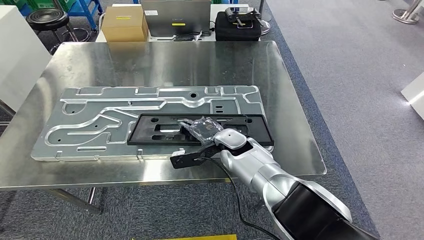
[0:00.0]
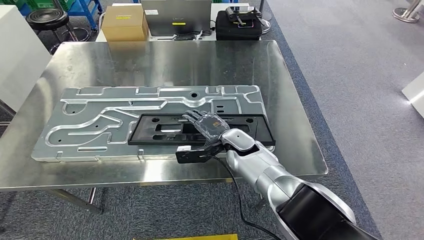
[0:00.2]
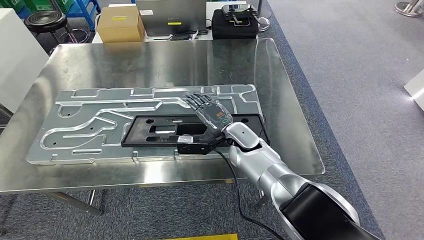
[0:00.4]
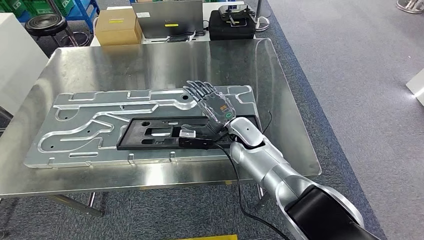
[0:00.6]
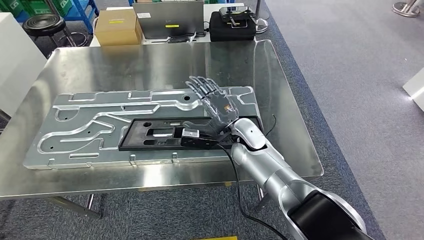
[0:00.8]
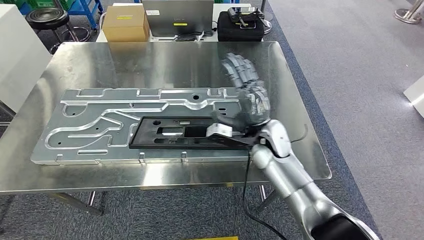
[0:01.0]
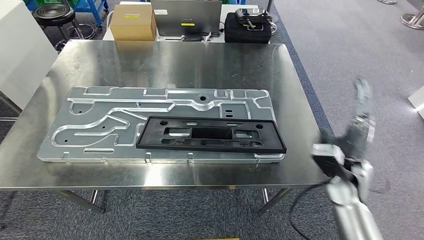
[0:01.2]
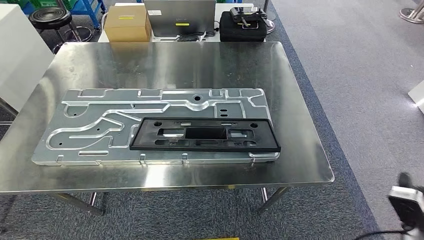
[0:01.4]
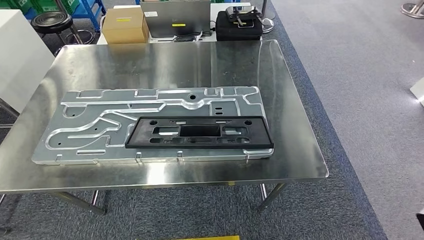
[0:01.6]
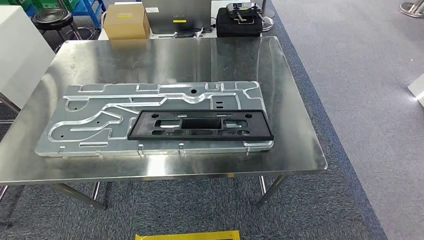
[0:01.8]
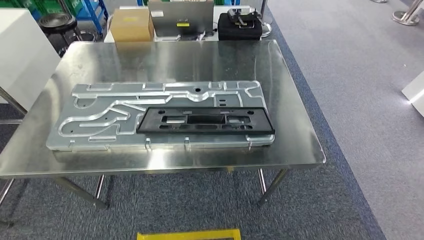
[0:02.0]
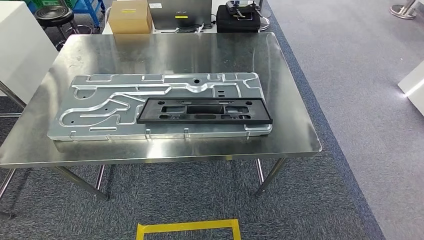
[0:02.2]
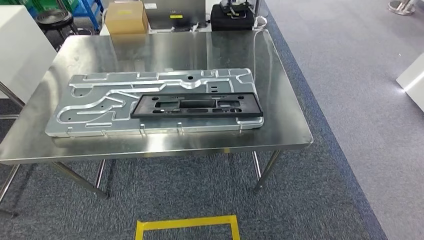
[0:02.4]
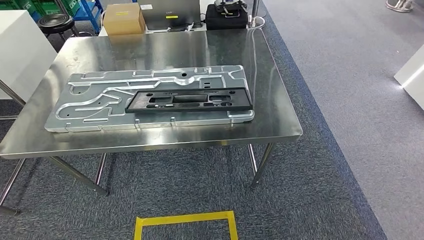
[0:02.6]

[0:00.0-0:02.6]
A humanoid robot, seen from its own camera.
Step, 0:00.0 to 0:02.6: Move to the initial position of the shelf.

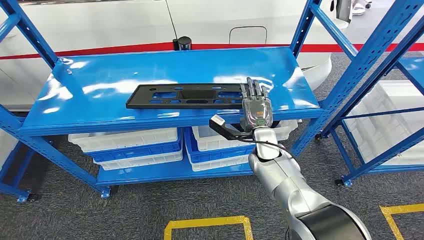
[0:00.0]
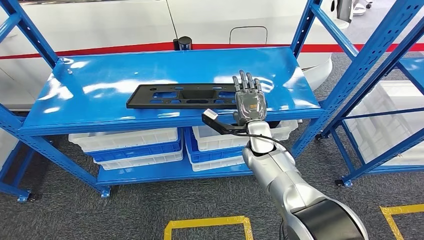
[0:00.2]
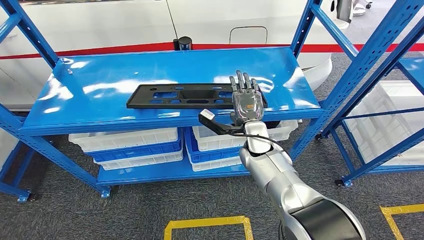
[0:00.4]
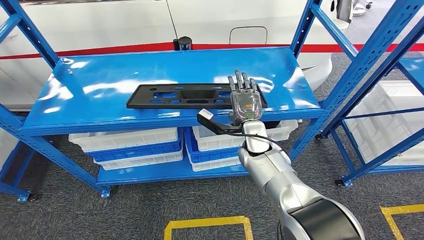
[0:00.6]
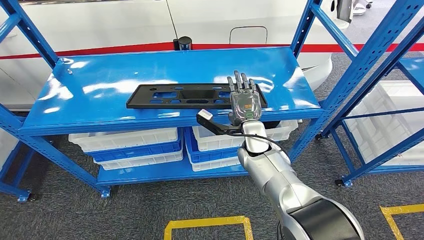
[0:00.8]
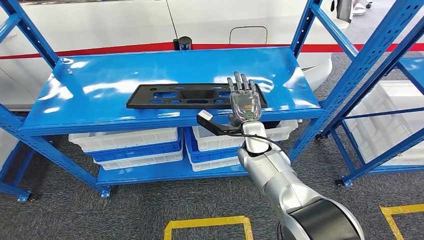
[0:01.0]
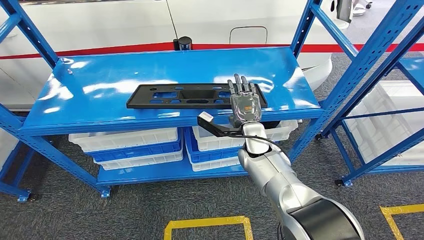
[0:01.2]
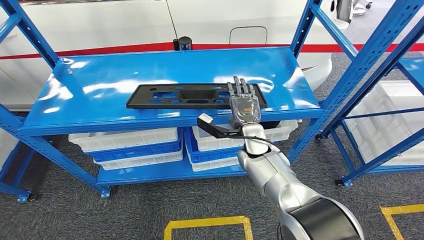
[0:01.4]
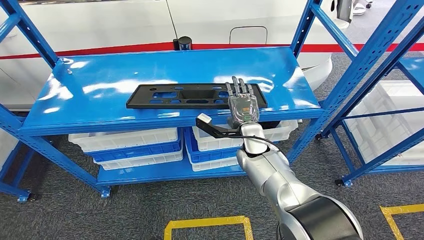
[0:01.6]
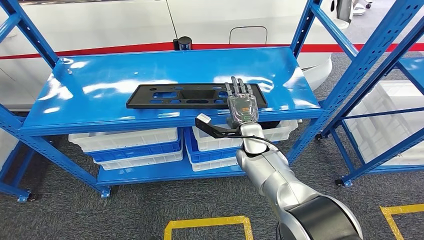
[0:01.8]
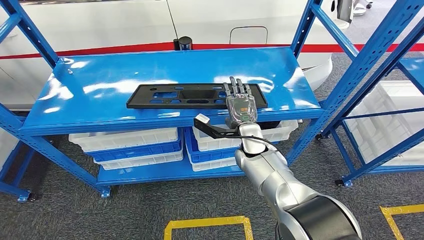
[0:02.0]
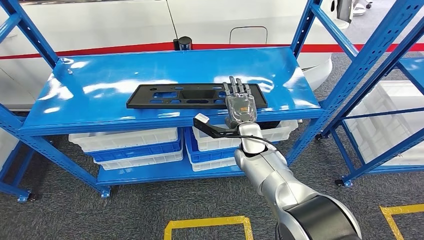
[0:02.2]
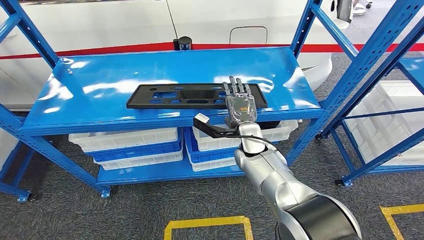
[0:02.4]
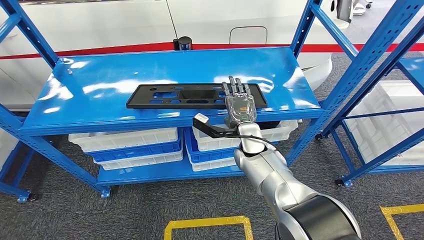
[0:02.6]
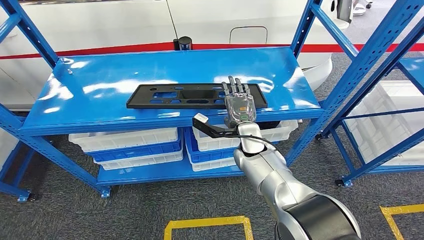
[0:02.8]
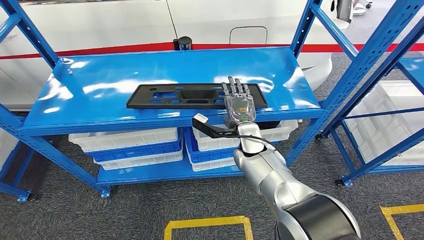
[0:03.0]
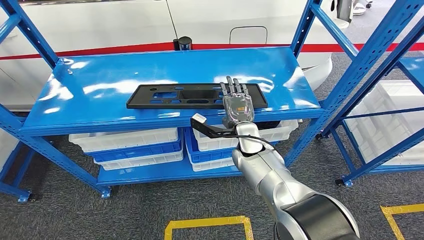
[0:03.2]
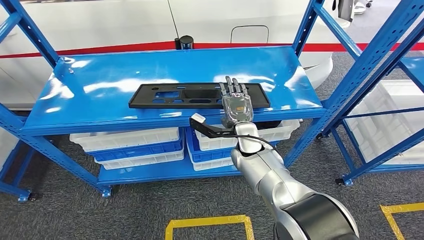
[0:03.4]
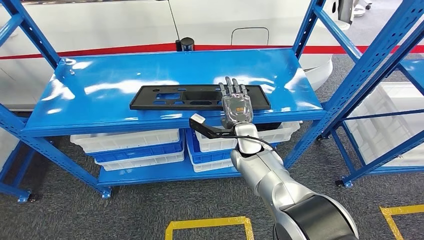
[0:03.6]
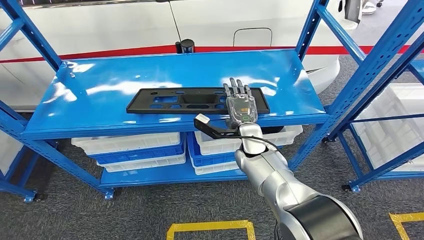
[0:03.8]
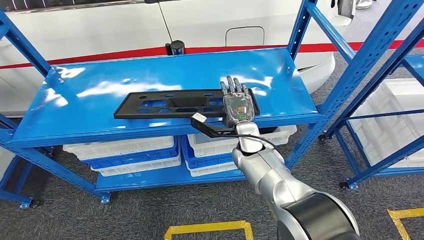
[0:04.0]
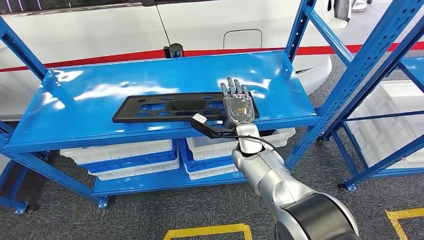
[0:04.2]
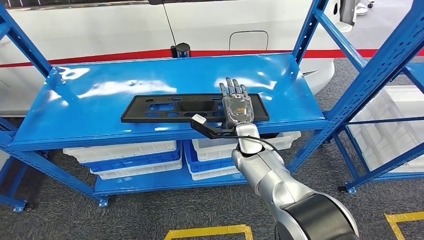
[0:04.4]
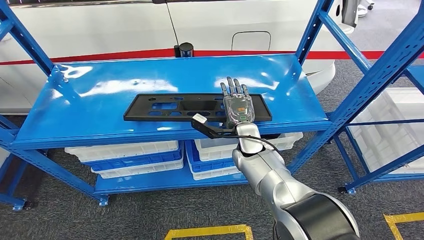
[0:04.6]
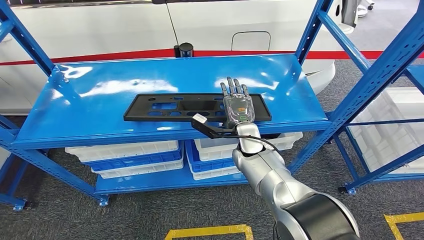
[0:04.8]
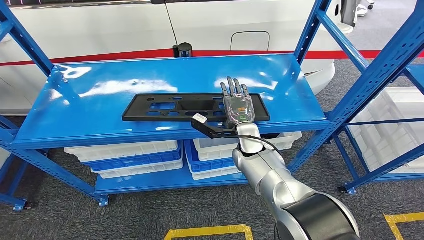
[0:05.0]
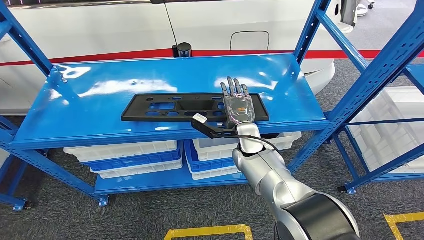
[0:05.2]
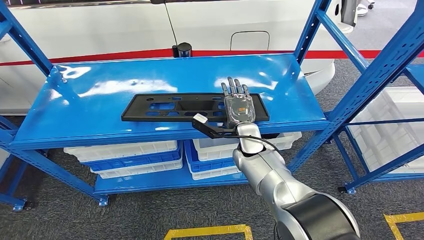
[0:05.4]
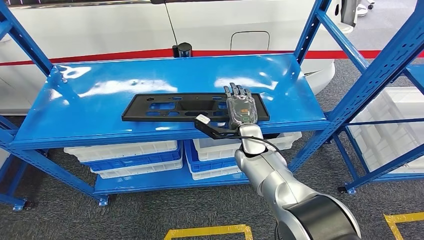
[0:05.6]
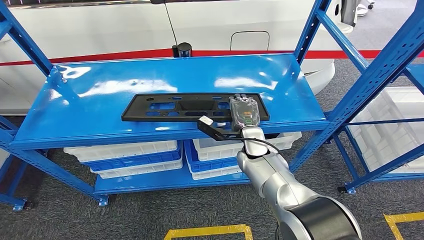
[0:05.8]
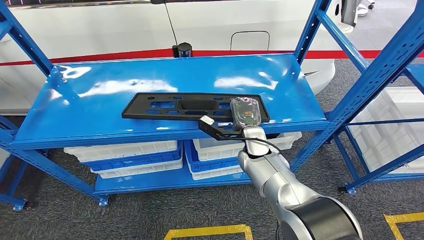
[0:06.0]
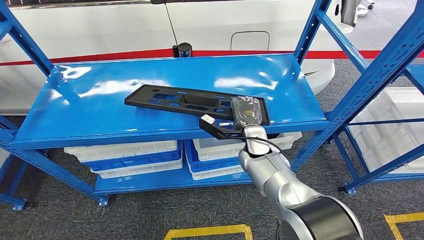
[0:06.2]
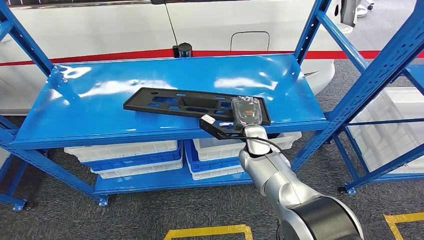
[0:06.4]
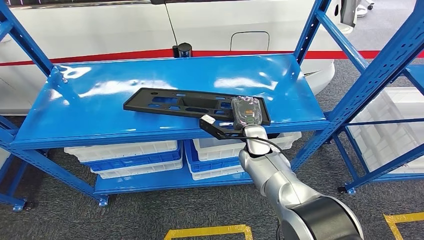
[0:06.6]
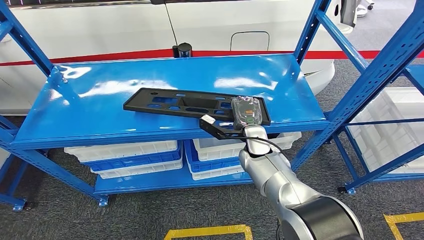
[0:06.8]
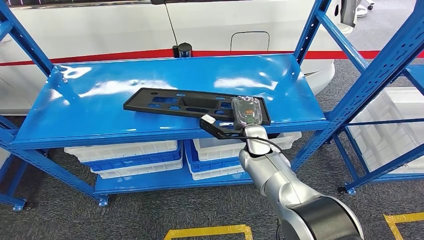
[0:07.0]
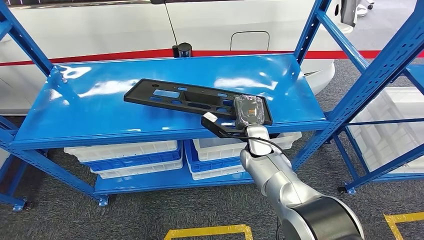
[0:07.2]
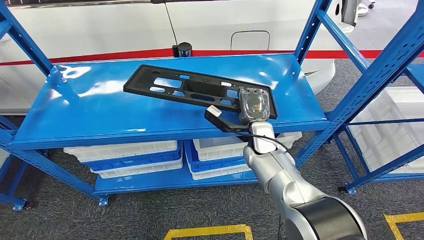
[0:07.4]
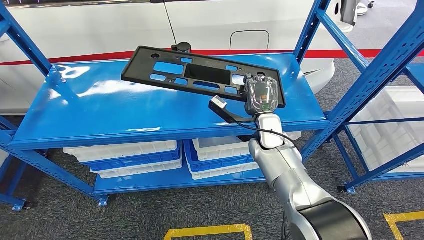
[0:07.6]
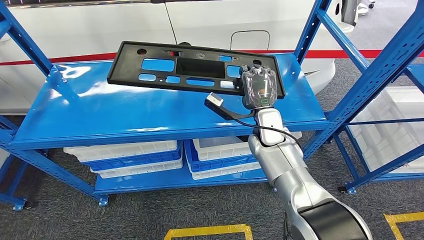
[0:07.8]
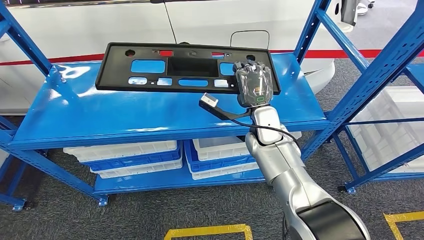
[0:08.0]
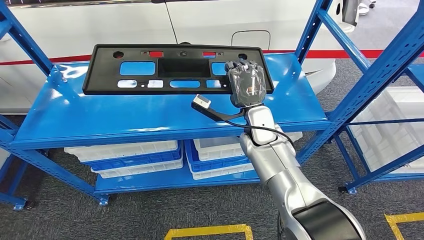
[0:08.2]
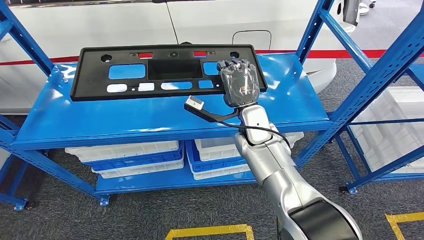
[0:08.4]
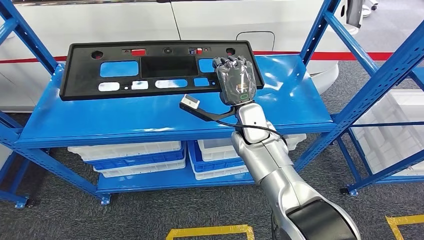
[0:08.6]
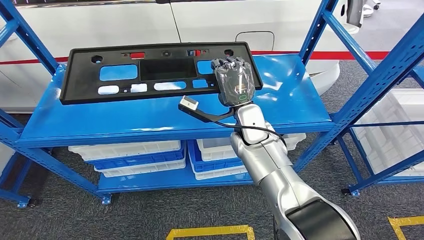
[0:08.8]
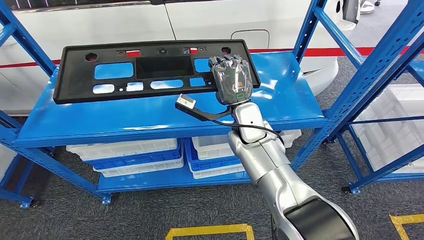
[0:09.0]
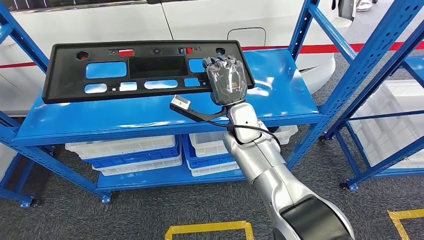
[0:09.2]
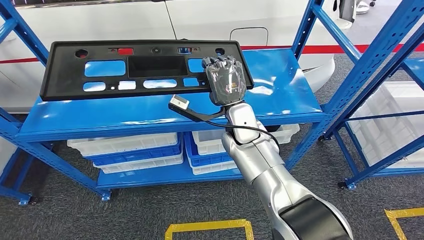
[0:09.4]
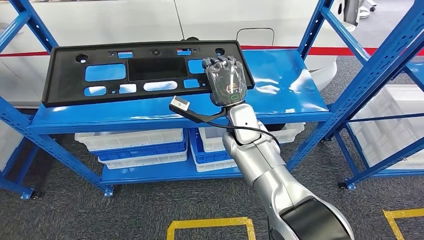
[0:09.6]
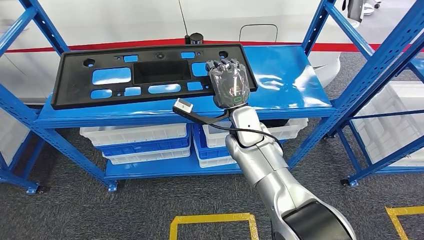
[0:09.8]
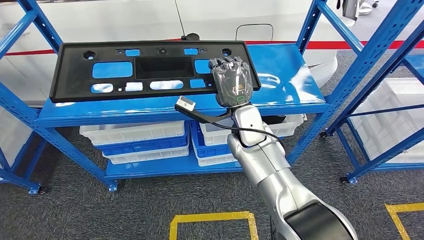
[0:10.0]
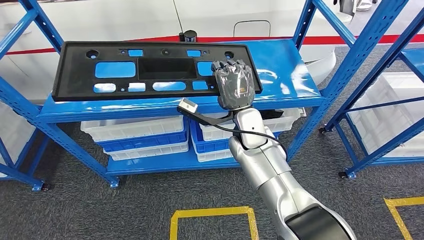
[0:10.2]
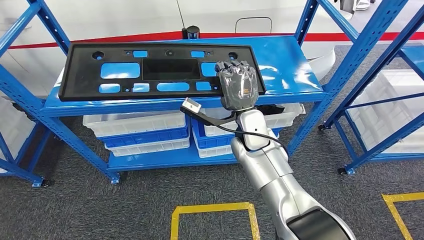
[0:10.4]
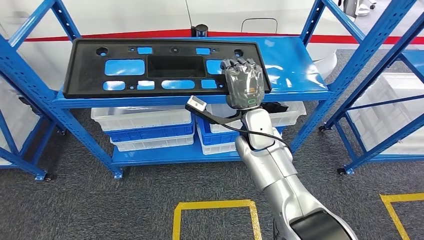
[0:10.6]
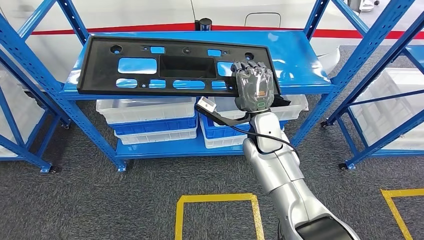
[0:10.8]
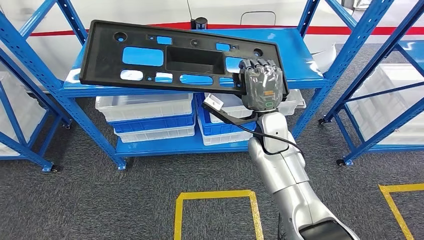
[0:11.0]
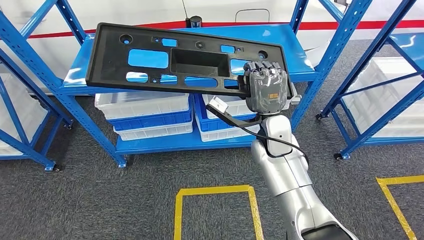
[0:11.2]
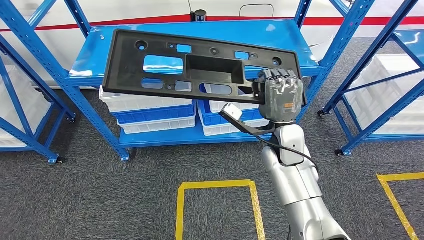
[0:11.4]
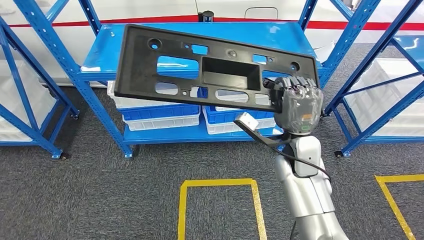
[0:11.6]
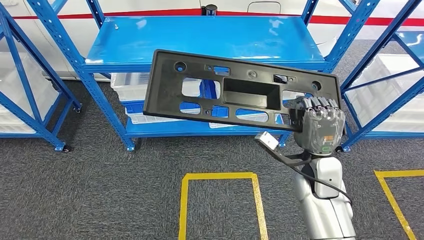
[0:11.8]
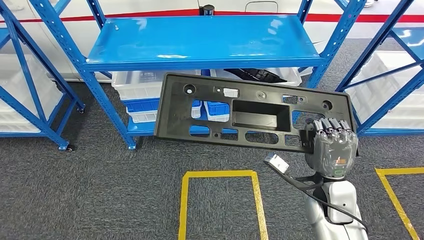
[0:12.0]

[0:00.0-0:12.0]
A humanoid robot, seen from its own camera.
Step, 0:00.0 to 0:10.4: Pick up the large material from the shelf.
0:01.6 to 0:03.0: The hands move only a little.
0:04.4 to 0:06.0: The hands move only a little.

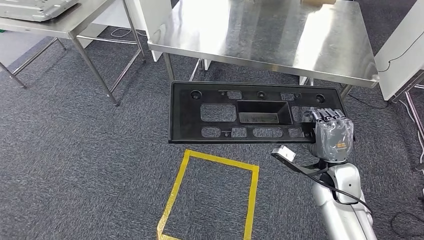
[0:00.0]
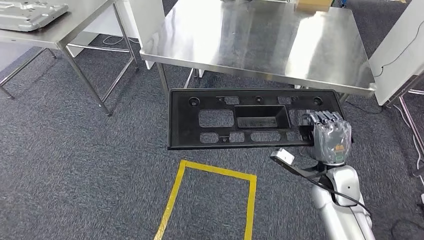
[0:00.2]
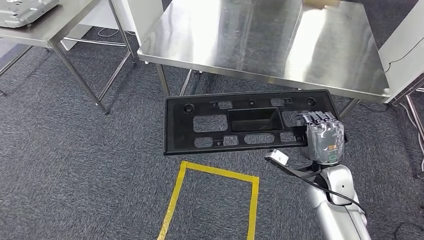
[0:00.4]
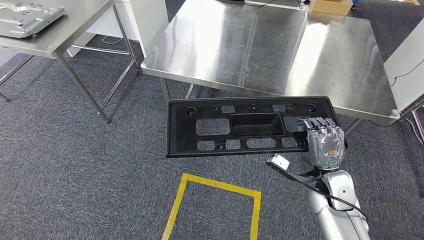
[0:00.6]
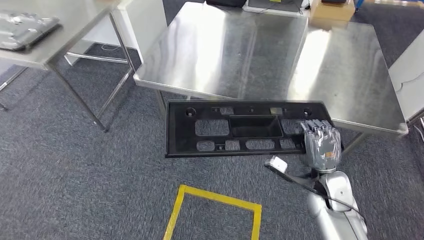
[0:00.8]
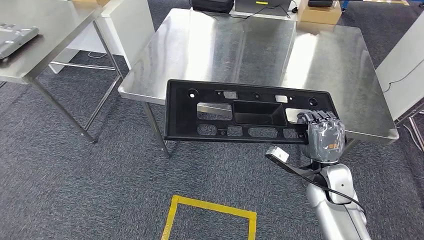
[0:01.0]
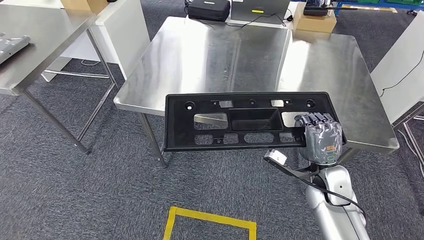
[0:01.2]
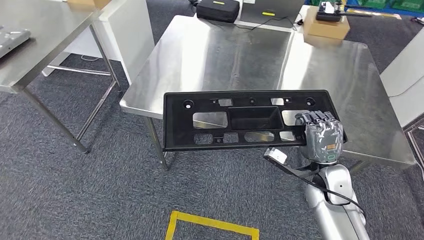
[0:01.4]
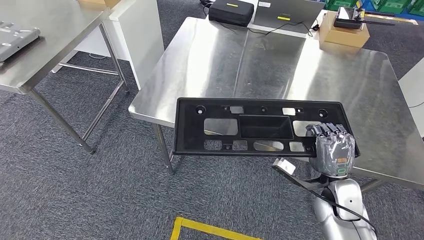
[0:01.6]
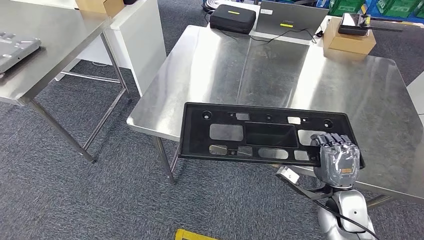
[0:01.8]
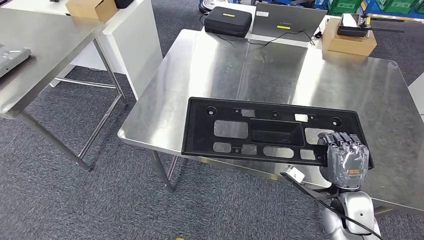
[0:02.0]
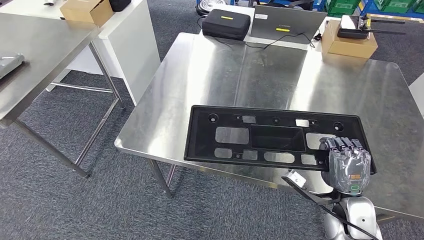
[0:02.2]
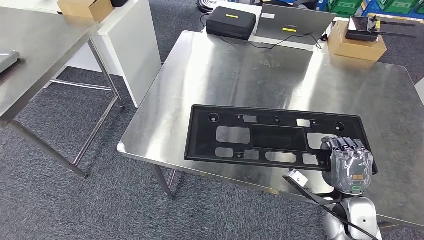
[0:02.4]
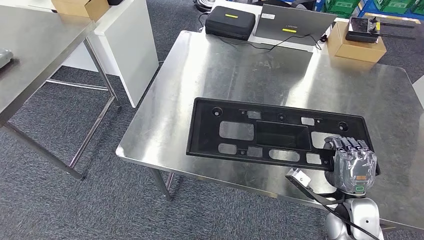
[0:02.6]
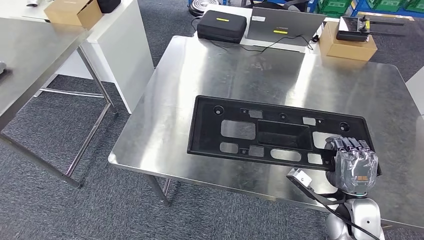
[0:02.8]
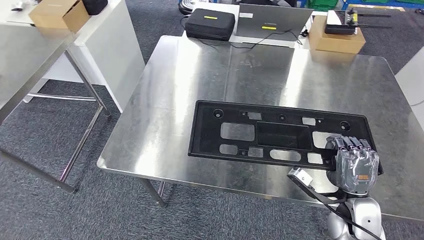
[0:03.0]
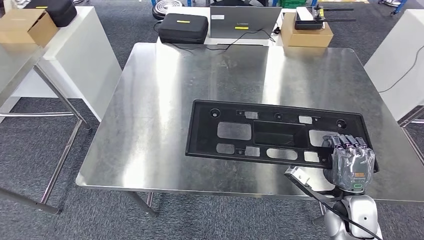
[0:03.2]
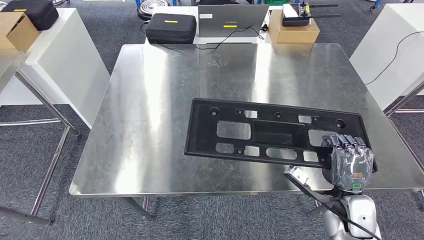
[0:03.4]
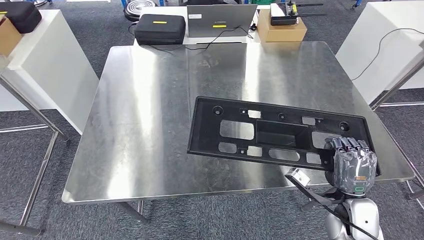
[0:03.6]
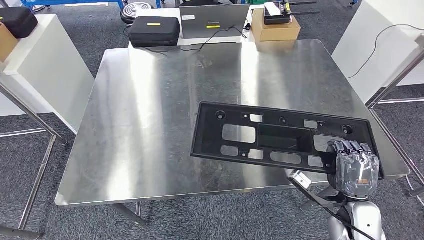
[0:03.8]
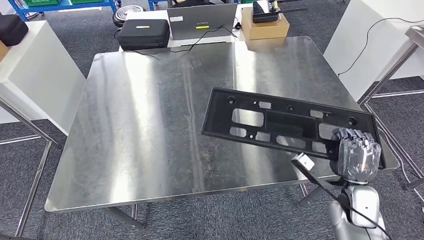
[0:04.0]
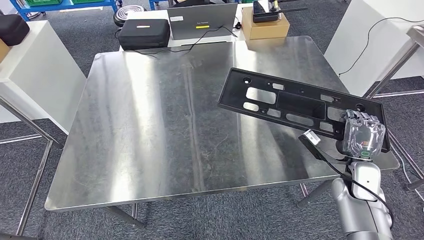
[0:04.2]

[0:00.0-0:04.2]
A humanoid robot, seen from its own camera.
Step, 0:00.0 to 0:04.0: Move the large material to the workbench.
